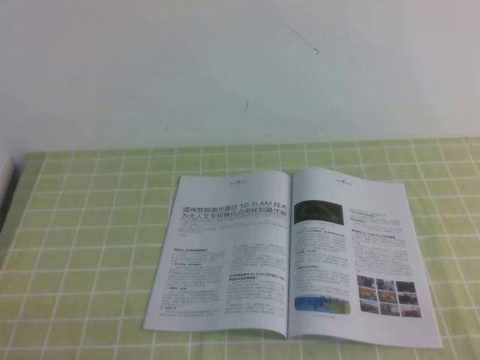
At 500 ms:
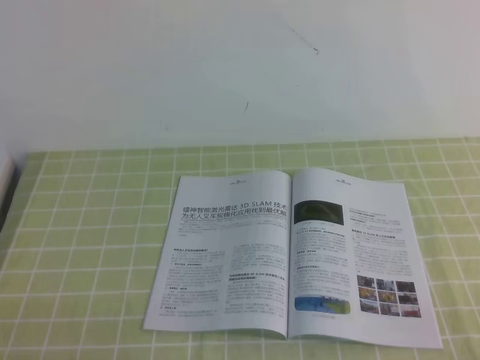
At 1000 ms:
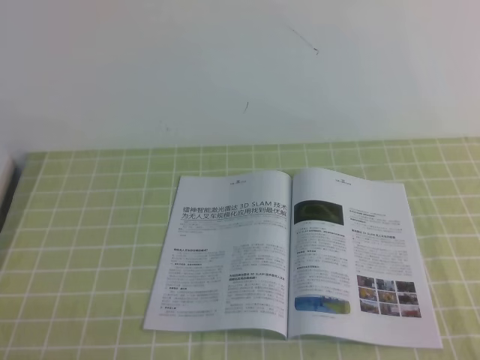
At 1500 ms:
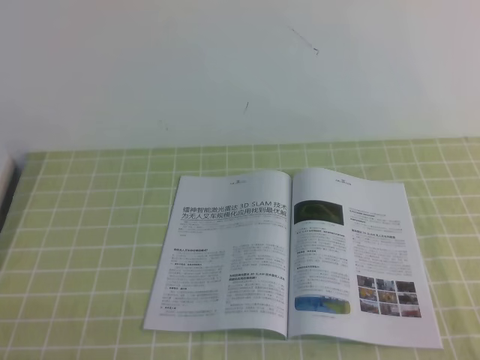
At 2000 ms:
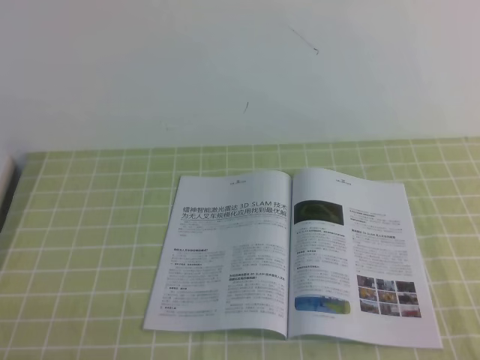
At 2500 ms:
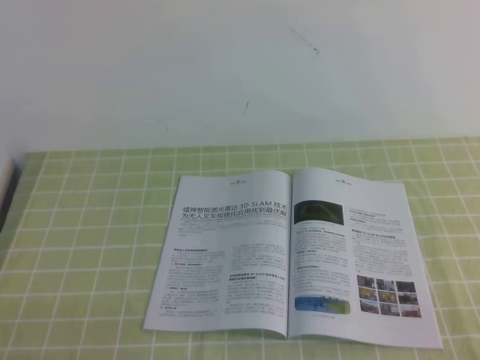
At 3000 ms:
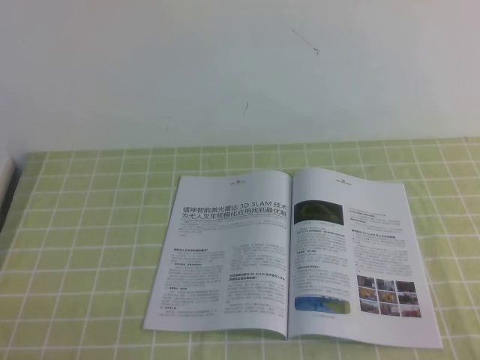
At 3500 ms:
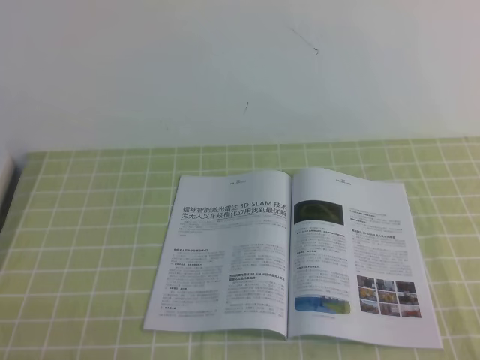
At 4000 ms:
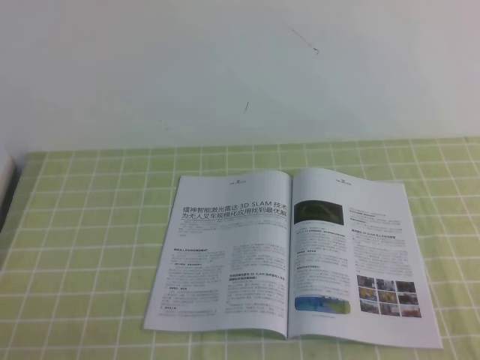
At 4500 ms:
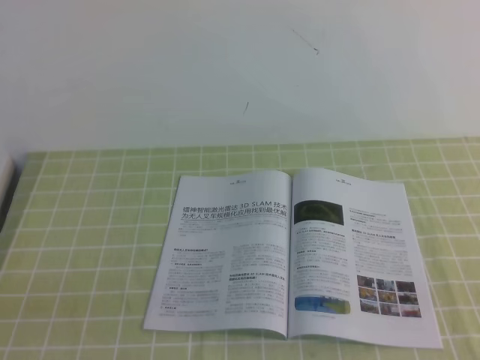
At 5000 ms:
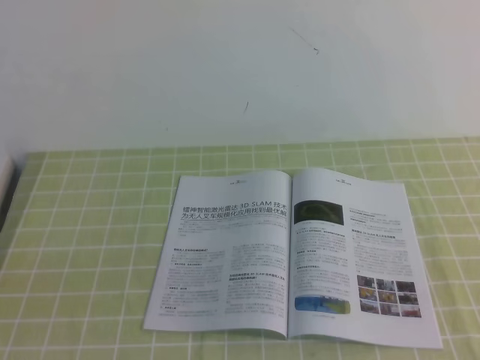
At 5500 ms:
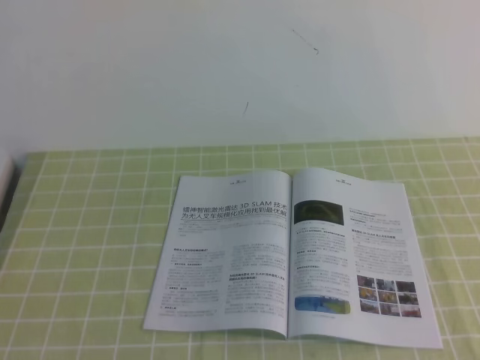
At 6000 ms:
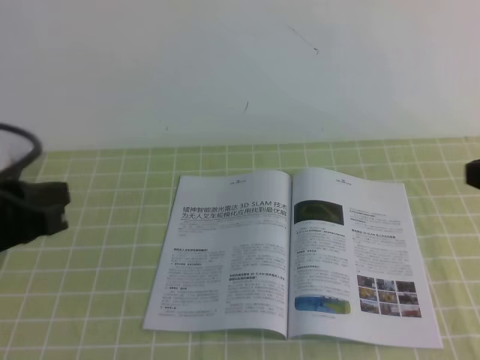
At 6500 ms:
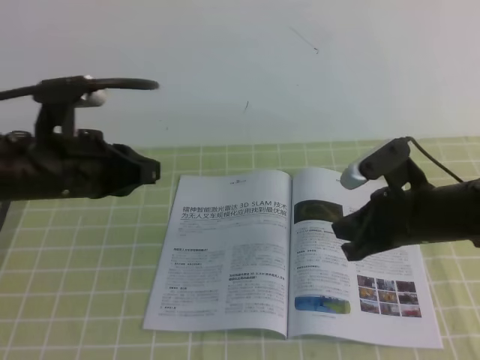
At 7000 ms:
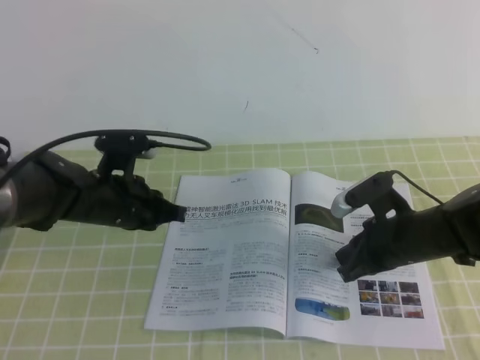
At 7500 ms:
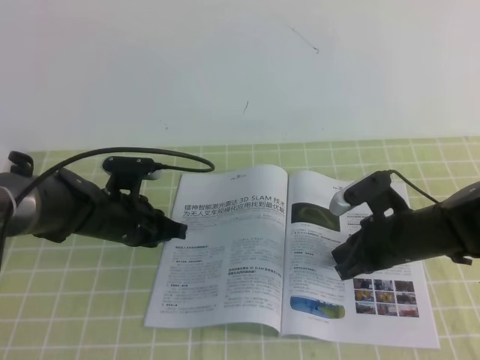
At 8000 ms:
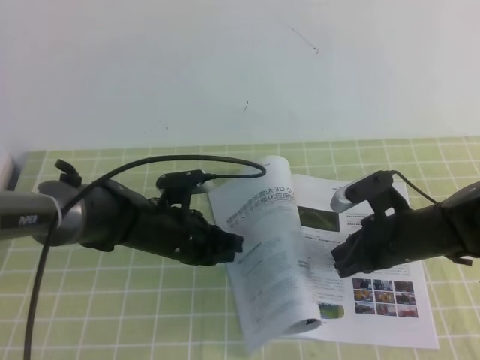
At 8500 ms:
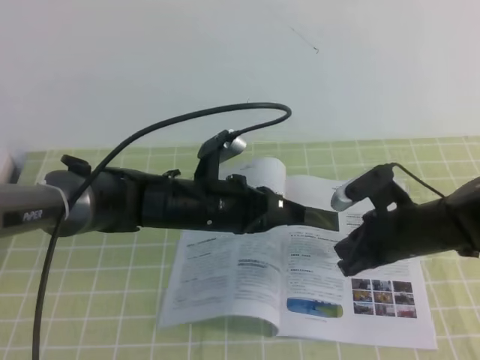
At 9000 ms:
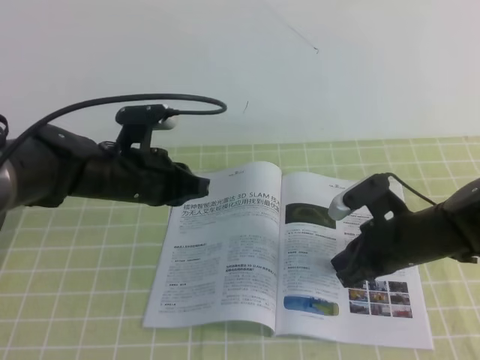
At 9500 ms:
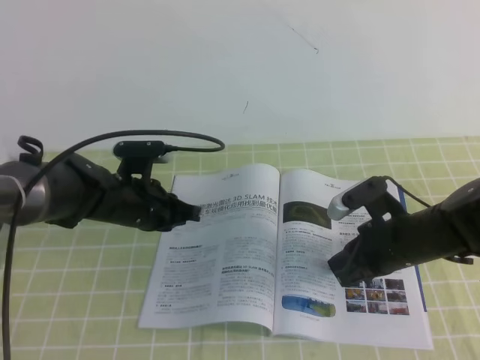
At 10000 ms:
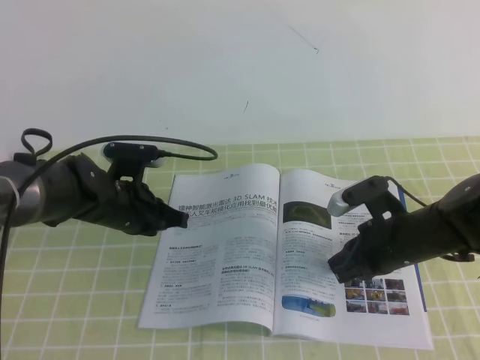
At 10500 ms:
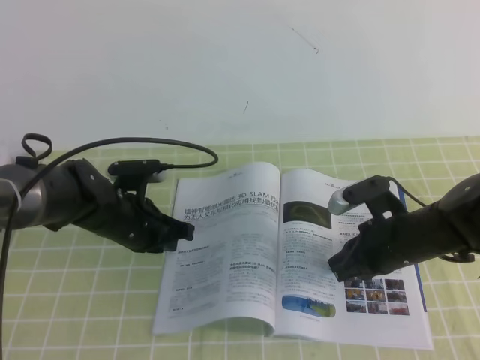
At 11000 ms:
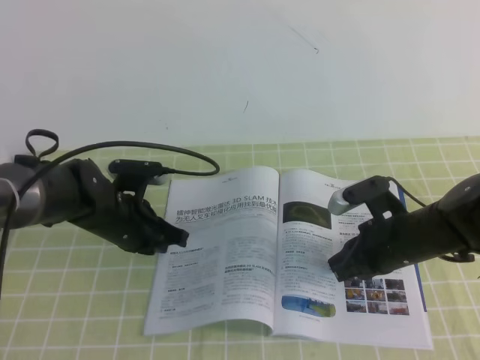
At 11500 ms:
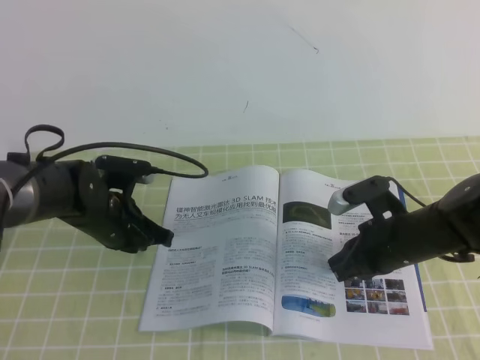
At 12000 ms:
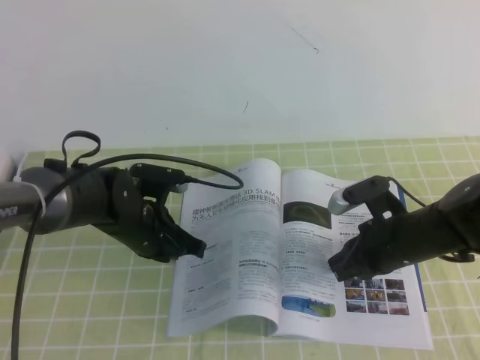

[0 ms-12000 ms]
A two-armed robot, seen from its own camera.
Task of the whole recording: on the green tablecloth, hold the book with one hand and close it with the other.
0 ms to 2000 ms: Neither gripper changes place.
4000 ms to 6000 ms: The left gripper travels upward and forward by some 20 cm.
6000 ms to 8000 ms: The left gripper travels downward, forward and to the right by approximately 30 cm. Meanwhile the right gripper goes some 25 cm downward, forward and to the left.
8000 ms to 10000 ms: The left gripper moves some 5 cm.
10000 ms to 12000 ms: The grippers make only small movements.

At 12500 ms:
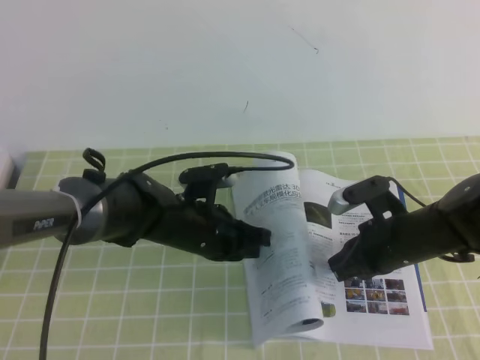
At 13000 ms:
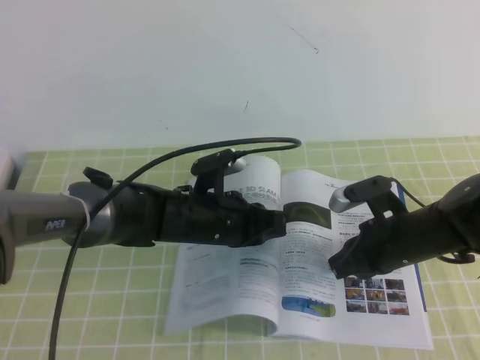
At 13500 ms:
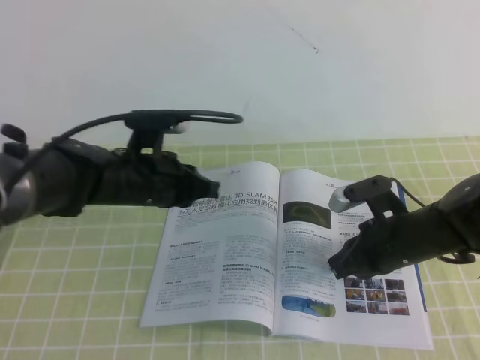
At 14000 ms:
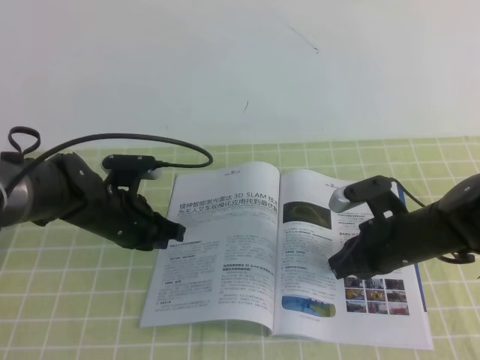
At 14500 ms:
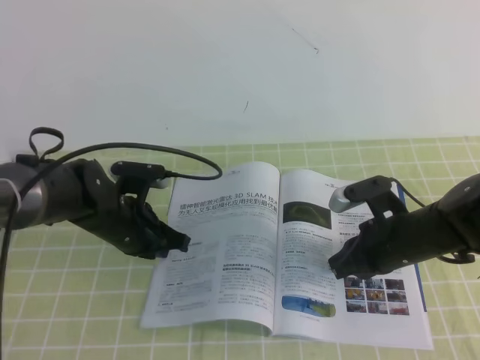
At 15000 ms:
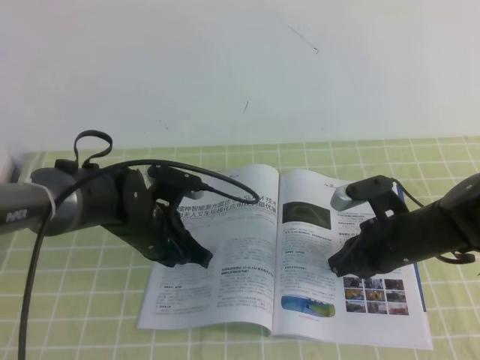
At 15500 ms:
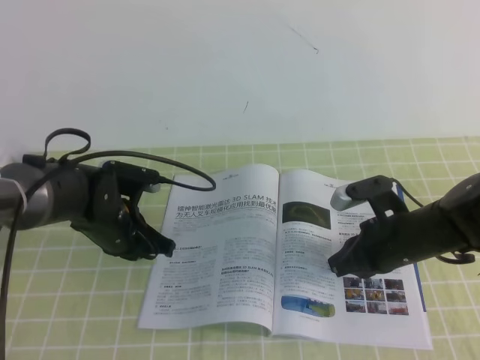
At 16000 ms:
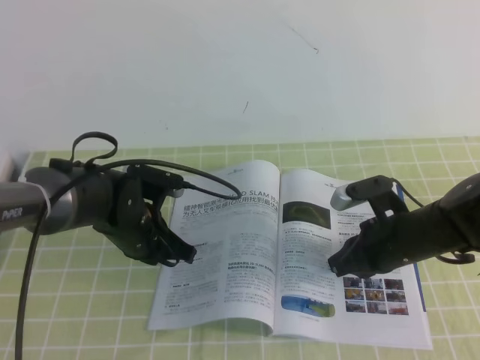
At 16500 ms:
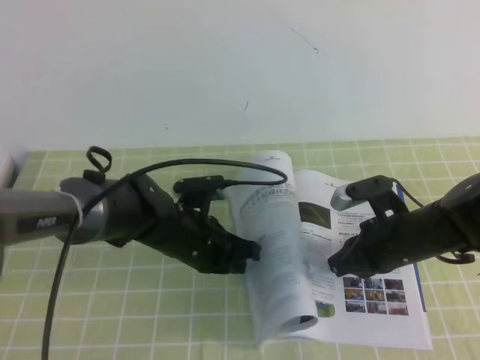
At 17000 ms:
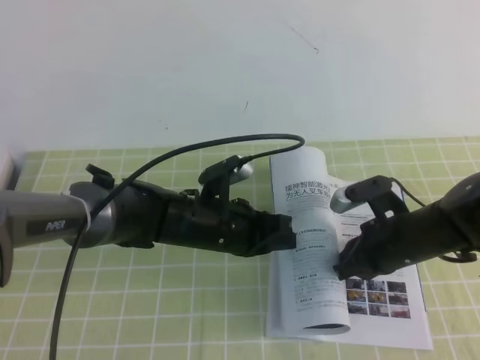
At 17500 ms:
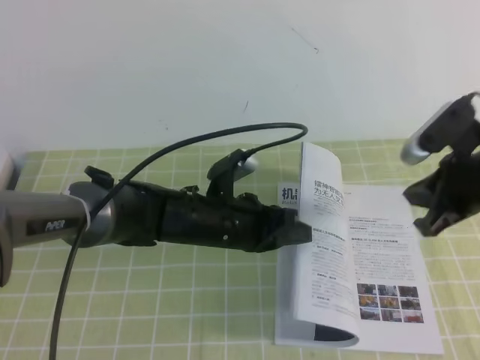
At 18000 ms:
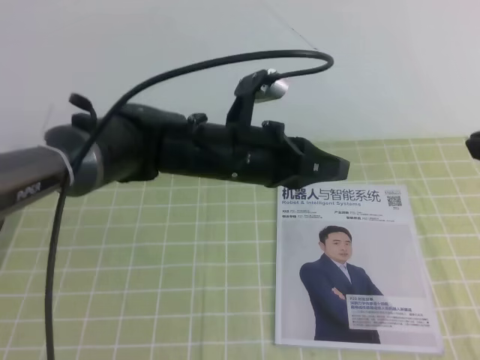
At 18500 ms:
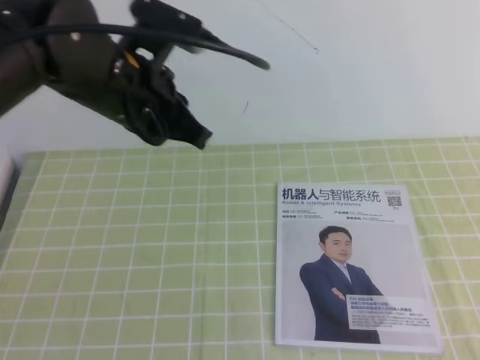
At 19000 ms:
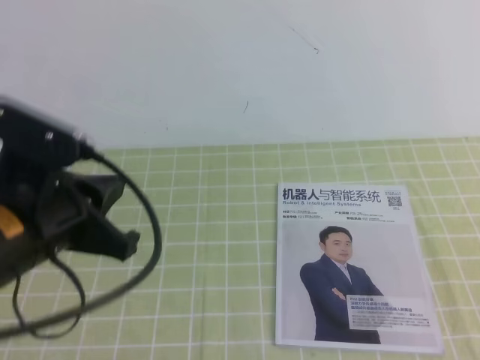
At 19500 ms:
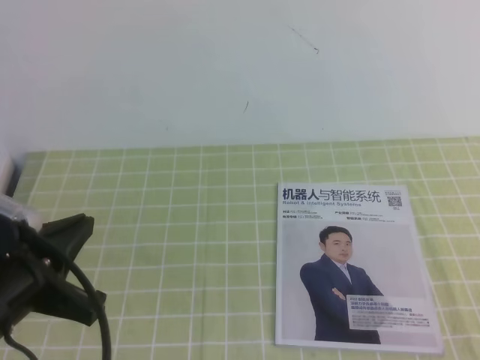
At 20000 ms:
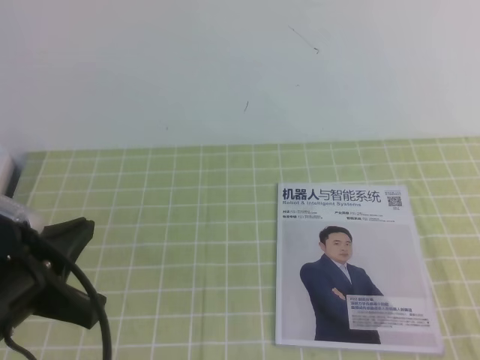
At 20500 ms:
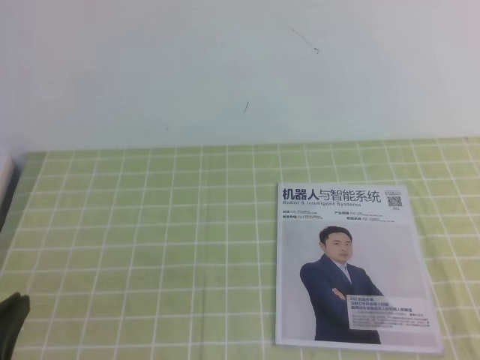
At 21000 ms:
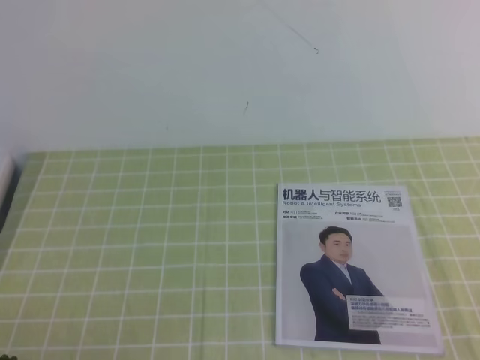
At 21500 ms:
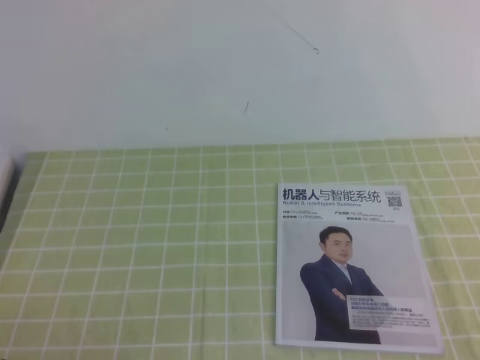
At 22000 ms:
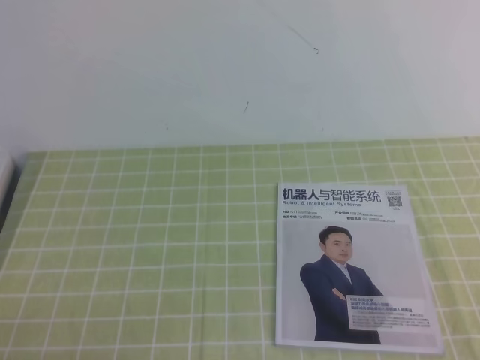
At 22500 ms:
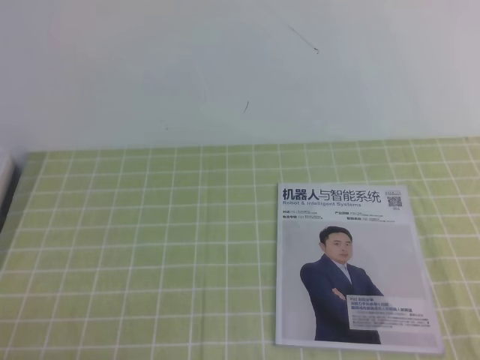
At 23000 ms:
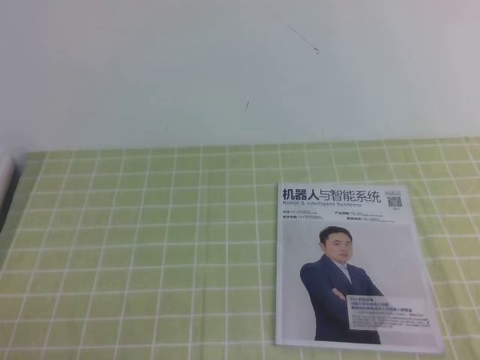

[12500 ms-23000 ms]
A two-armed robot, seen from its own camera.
Task of the whole recording: on the green tablecloth, hold the book with one hand and close it with the other.
12500 ms to 14500 ms: The left gripper travels to the left by roughly 10 cm.
14500 ms to 16500 ms: The left gripper is displaced to the right by roughly 5 cm.
16500 ms to 19000 ms: The right gripper goes approximately 35 cm backward, upward and to the right. Meanwhile the left gripper shifts about 25 cm upward, backward and to the left.
19000 ms to 21000 ms: The right gripper heads downward, covering roughly 5 cm. The left gripper goes roughly 25 cm backward, downward and to the left.

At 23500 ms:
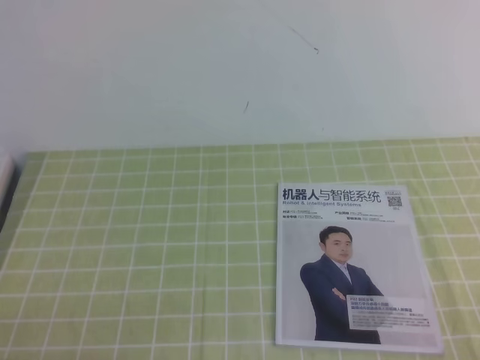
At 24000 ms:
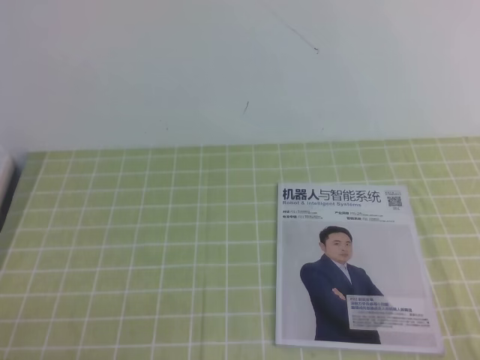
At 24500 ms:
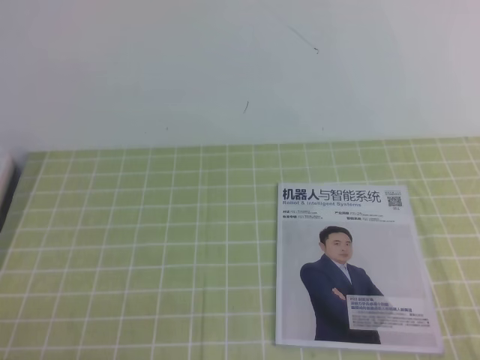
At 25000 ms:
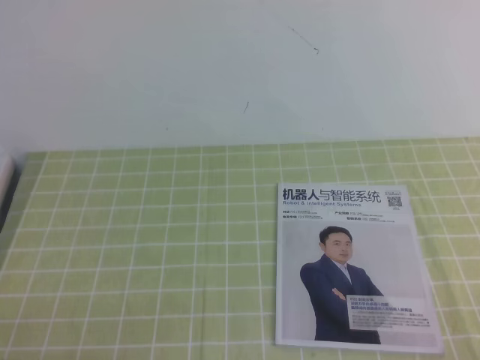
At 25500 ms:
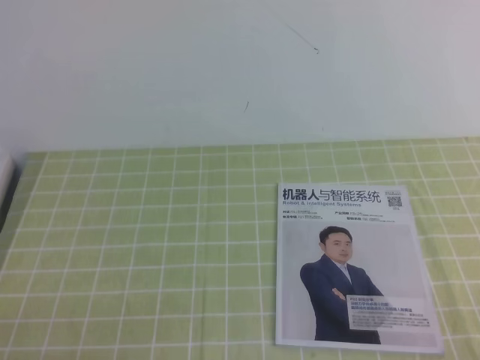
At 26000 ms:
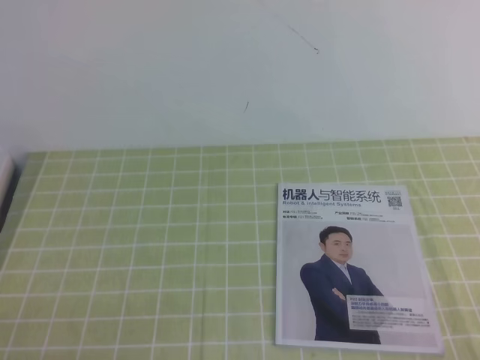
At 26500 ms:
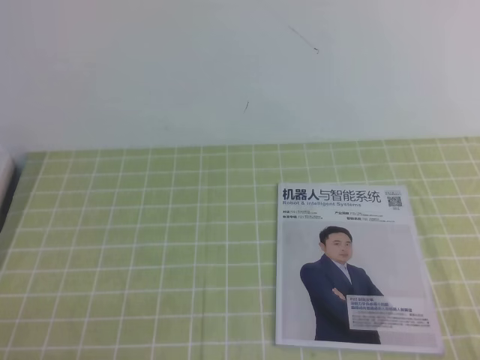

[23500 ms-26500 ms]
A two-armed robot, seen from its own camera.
Task of the whole recording: on the green tablecloth, hold the book with one hand and close it with the other.
23500 ms to 26500 ms: Both grippers stay put.
